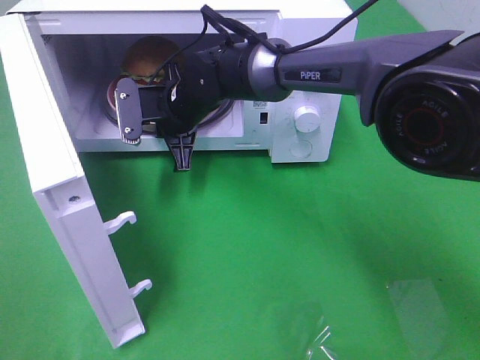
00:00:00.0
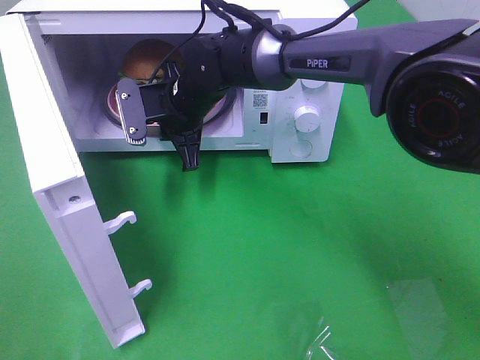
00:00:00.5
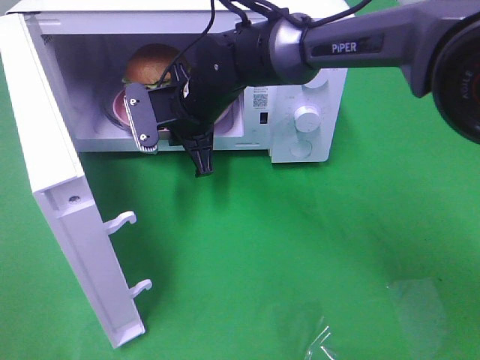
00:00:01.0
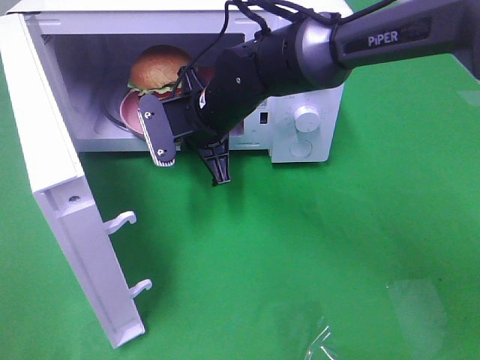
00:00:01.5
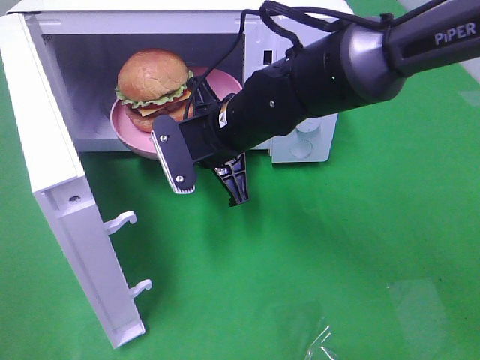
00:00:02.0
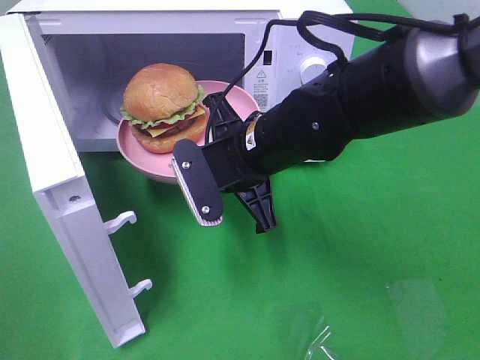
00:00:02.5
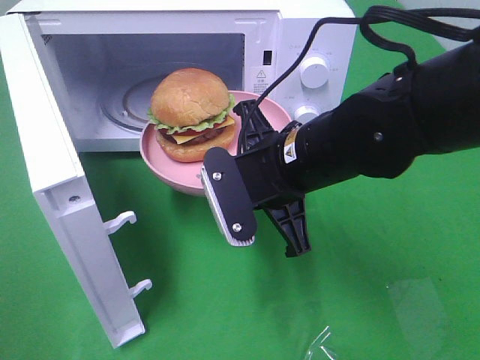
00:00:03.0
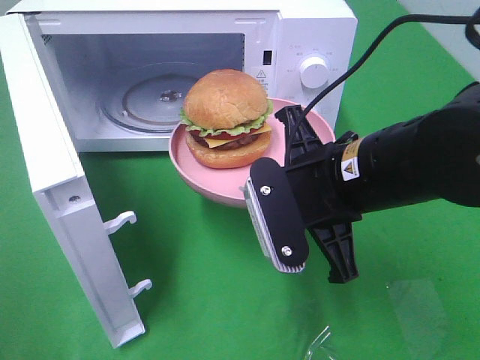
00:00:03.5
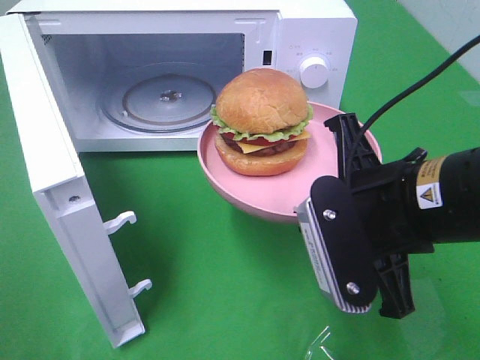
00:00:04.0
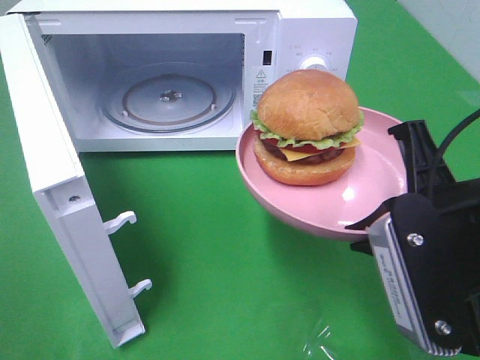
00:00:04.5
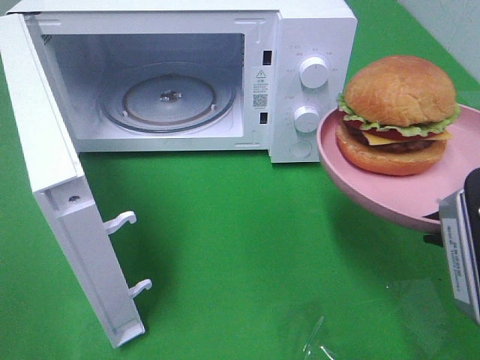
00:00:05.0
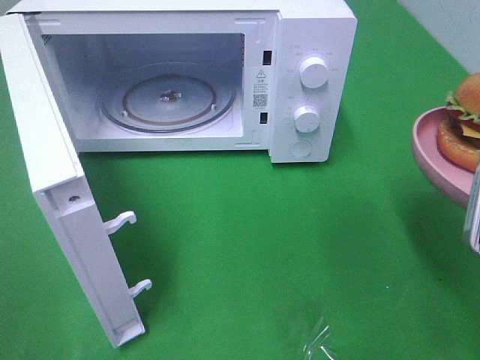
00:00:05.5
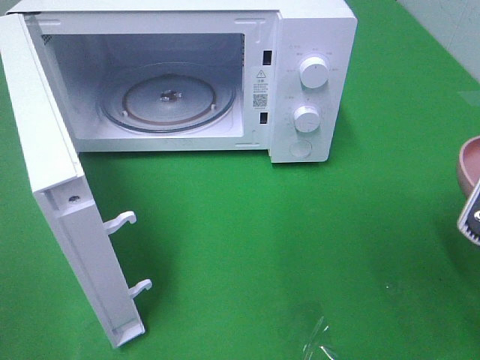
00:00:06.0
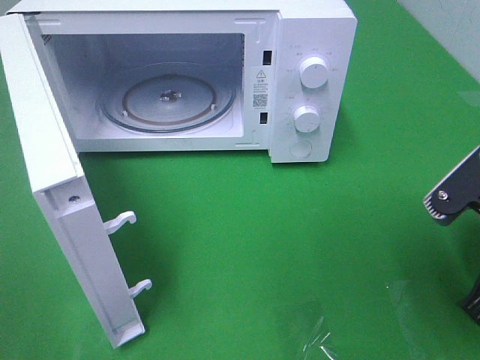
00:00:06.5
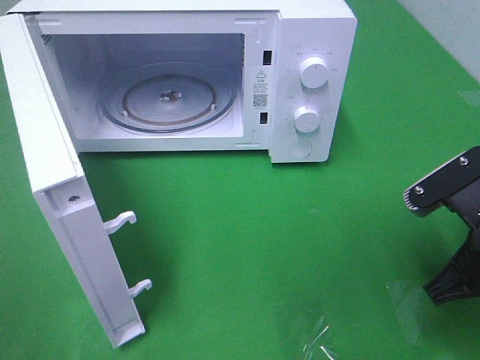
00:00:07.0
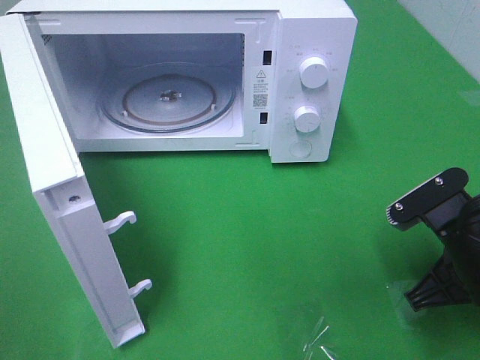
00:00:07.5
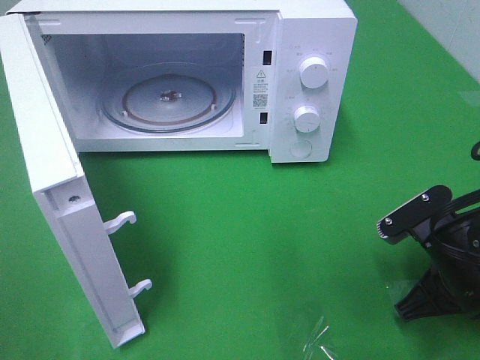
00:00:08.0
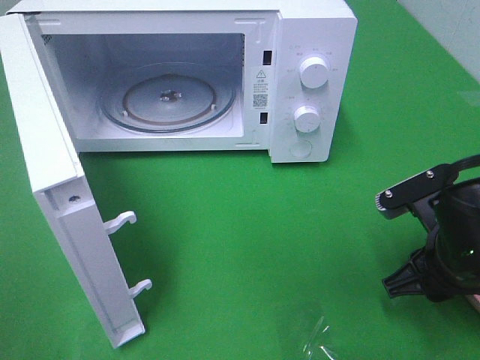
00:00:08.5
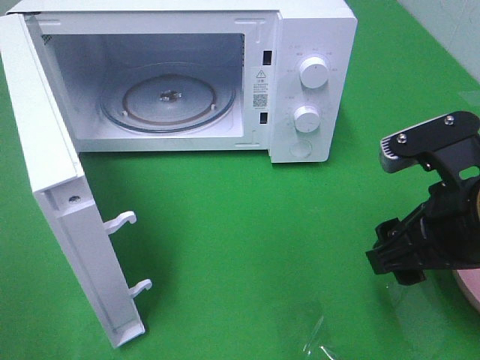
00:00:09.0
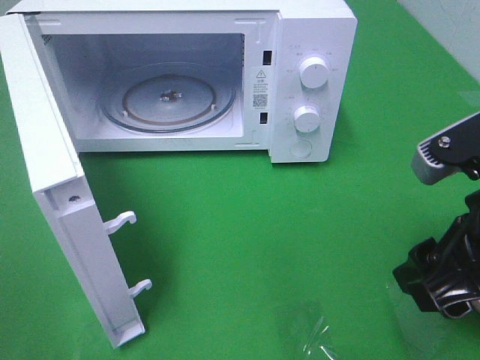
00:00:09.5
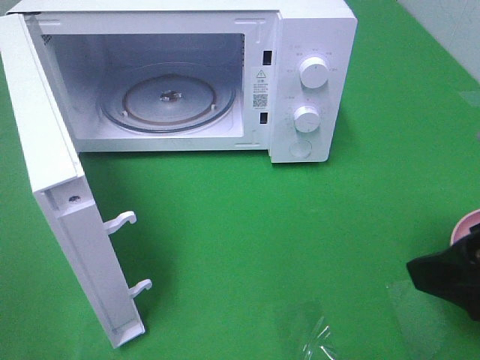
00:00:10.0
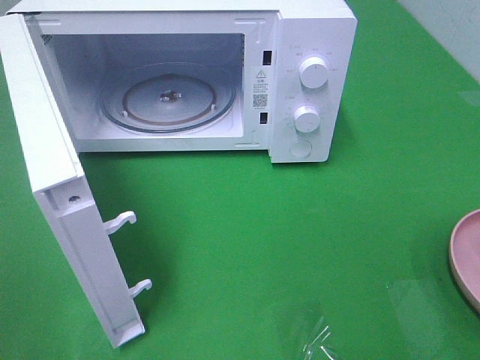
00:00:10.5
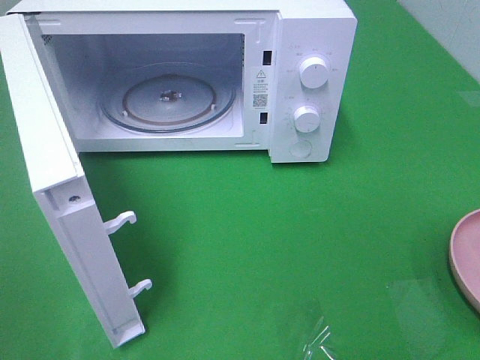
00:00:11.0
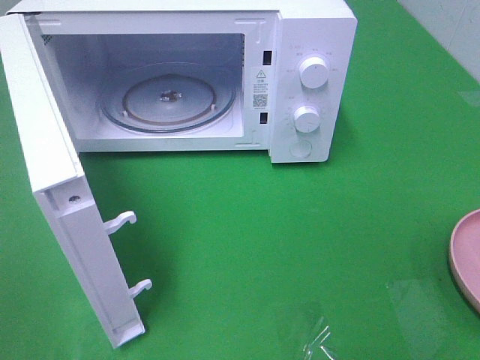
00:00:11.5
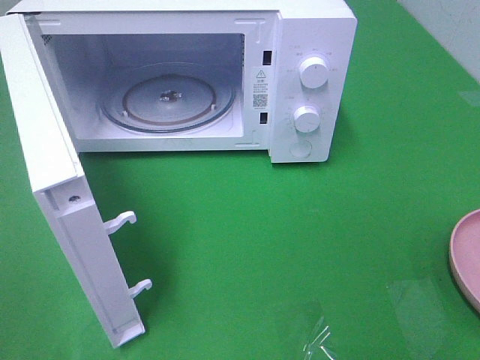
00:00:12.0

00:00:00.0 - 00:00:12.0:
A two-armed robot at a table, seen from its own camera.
Task of the whole recording: Heat the burger.
Step, 00:00:00.5 - 00:00:09.0: Right hand: place the plate on the table.
00:00:00.0 - 00:00:02.0: The right gripper goes some 10 cm backward and to the right.
00:00:02.0 - 00:00:04.0: The right gripper goes approximately 20 cm backward and to the right.
00:00:04.0 - 00:00:06.0: The right gripper travels to the right by approximately 10 cm.
00:00:06.0 - 00:00:08.0: The right gripper shifts about 15 cm downward and forward.
00:00:08.0 - 00:00:10.0: The right gripper moves upward and backward, roughly 20 cm, and opens up.
00:00:10.0 - 00:00:12.0: The right gripper shifts about 15 cm backward and to the right.

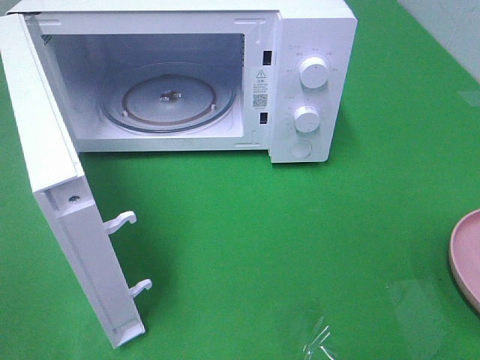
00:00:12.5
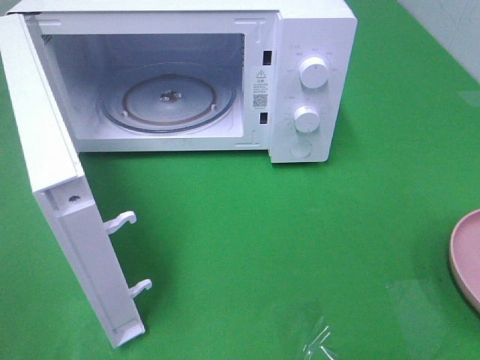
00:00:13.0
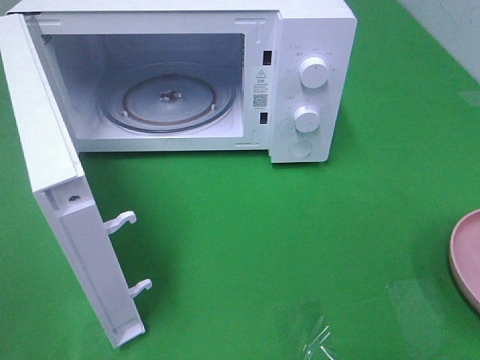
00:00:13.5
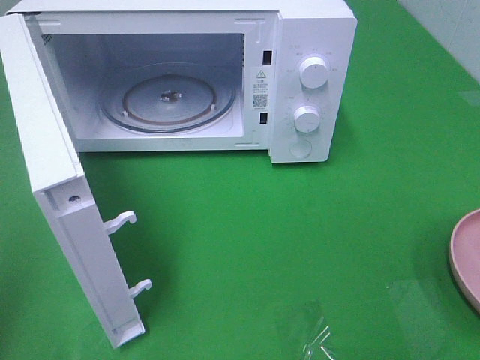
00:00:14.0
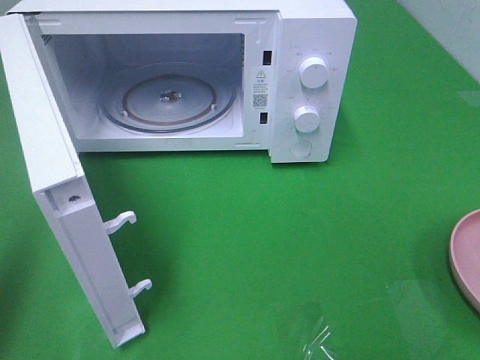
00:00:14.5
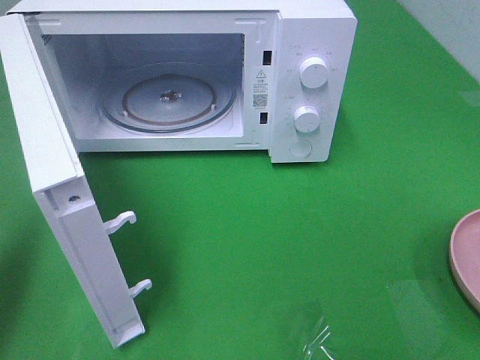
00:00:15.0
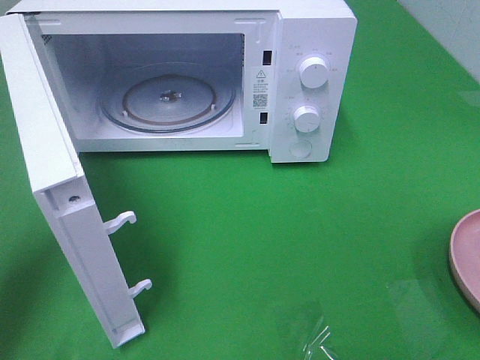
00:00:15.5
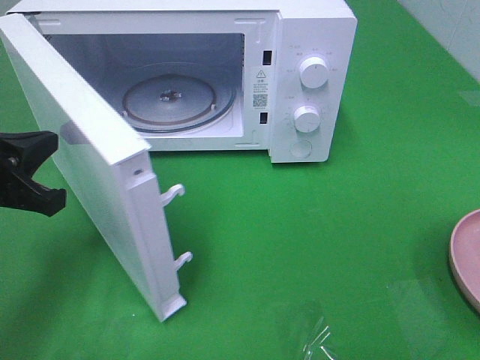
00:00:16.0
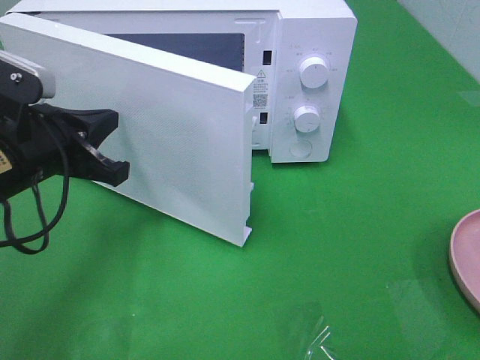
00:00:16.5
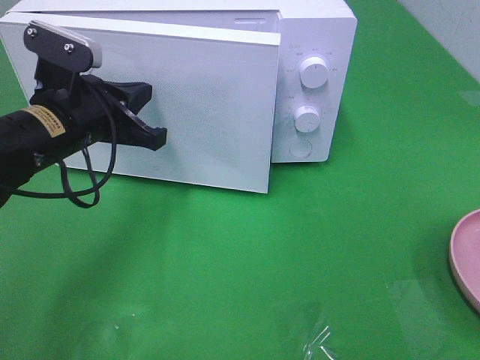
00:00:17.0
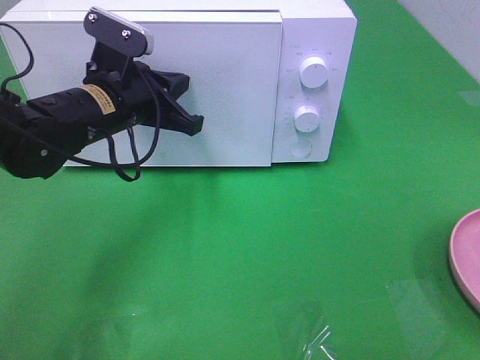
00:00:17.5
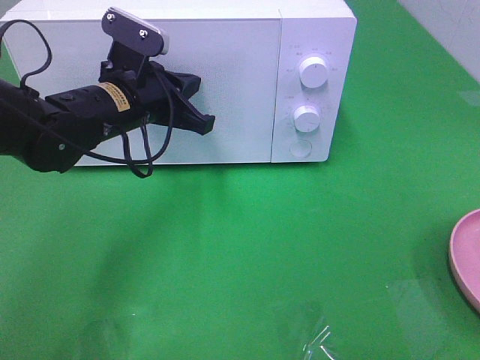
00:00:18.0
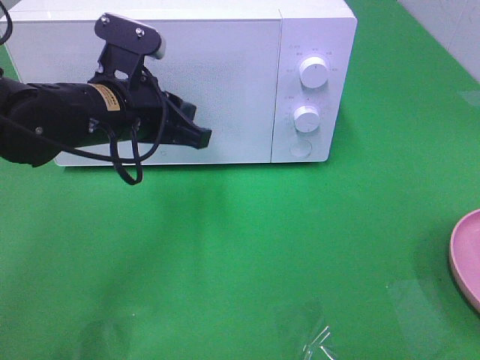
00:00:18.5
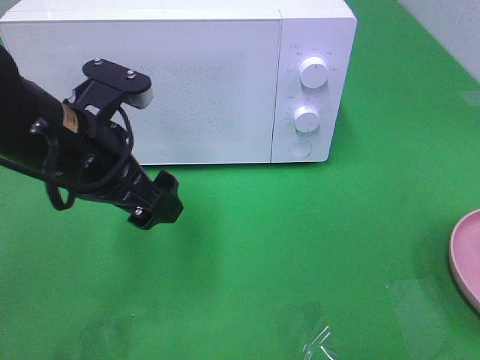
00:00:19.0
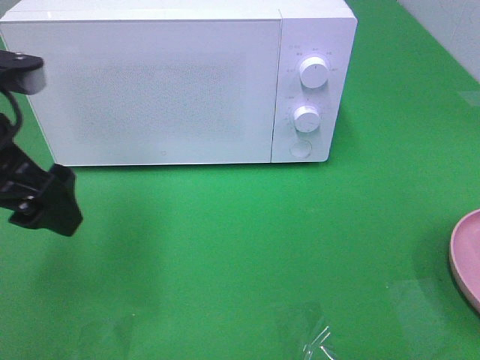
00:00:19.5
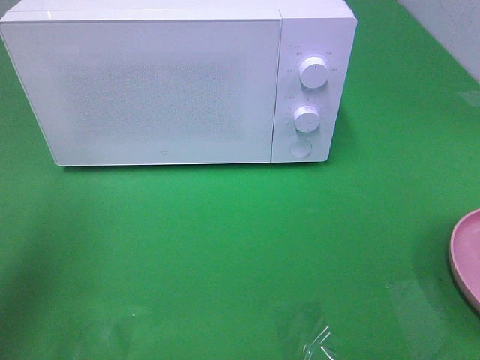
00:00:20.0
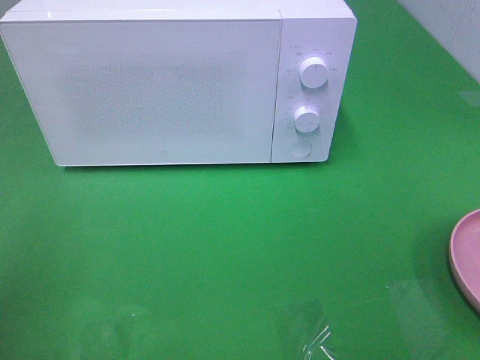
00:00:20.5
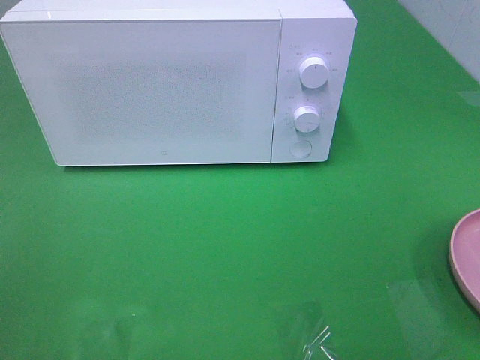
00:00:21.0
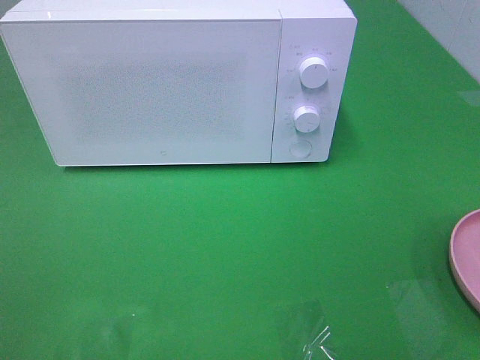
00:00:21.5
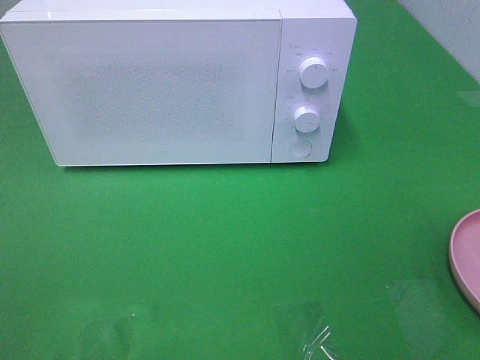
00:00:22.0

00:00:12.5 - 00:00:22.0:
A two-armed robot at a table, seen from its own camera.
Task of the whole recording: Heat the burger.
Step, 00:00:12.5 - 00:00:18.5: Left hand: close the microwave door.
00:00:12.5 - 00:00:14.5: The left gripper goes about 10 cm forward, and closes.
00:00:14.5 - 00:00:16.5: The left gripper goes about 20 cm forward, to the right and downward.
00:00:16.5 - 00:00:18.0: The left gripper moves forward and to the right, about 10 cm.
00:00:18.0 - 00:00:20.0: The left gripper goes some 25 cm backward, to the left and upward, and opens up.
00:00:20.0 - 00:00:22.0: The left gripper moves backward, roughly 20 cm.
